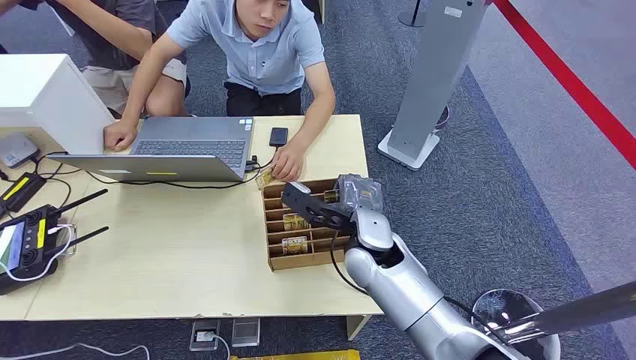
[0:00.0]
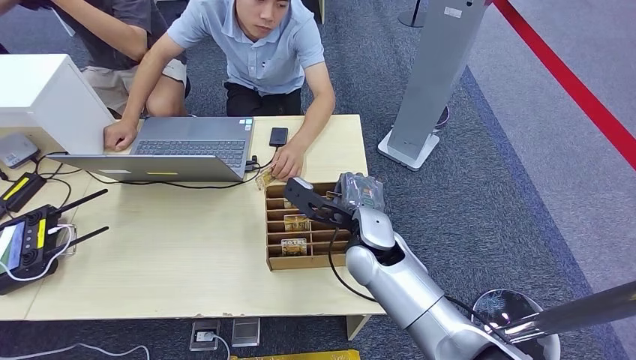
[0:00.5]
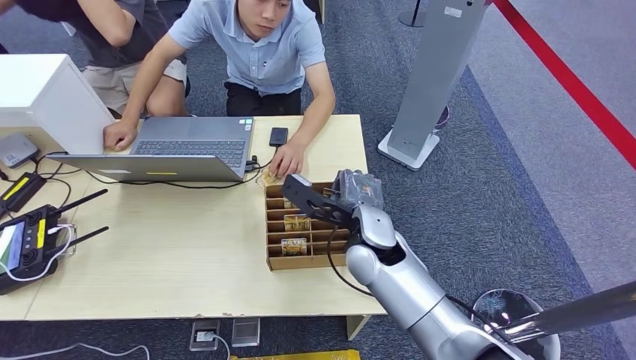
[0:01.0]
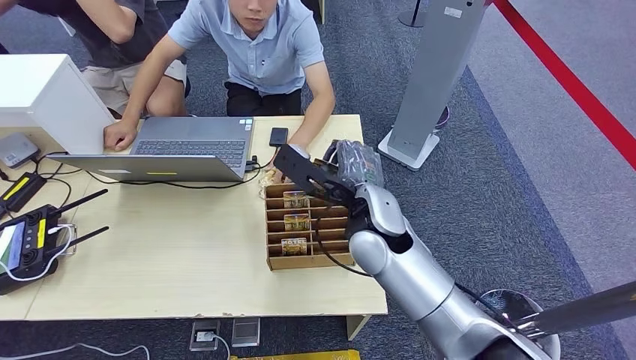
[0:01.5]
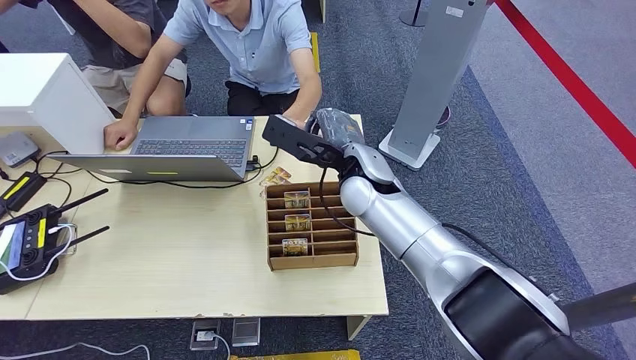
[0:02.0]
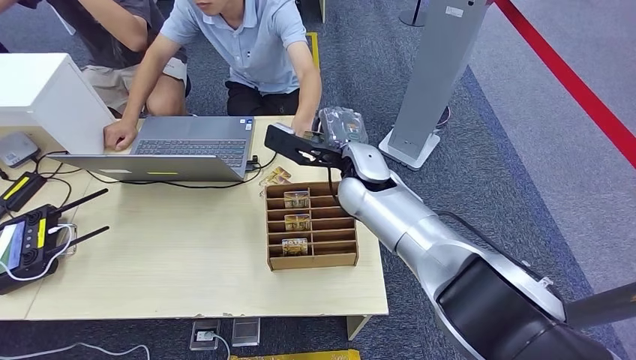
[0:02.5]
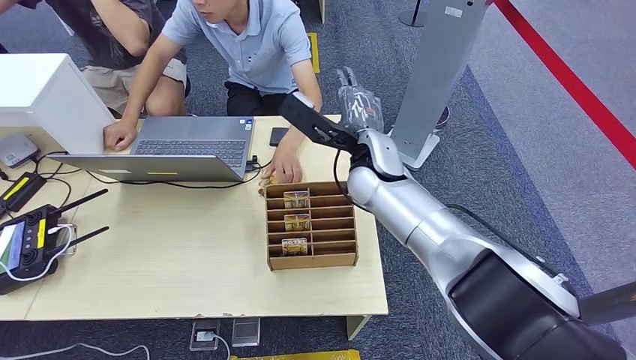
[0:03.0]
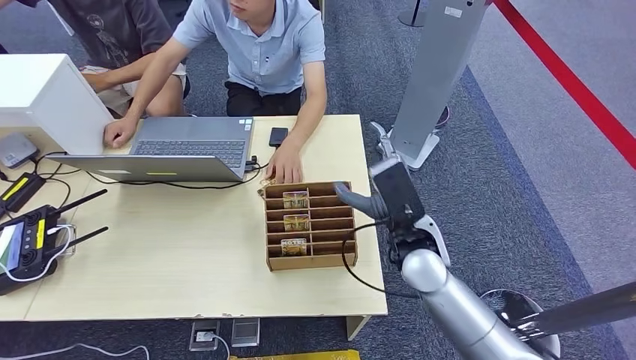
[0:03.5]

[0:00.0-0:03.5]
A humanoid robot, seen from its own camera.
Step, 0:00.0 to 0:01.5: Pick up the key card from the card box.
Step, 0:02.0 to 0:03.0: Hand the key card to the target.
0:02.0 to 0:03.5: The right hand moves backward, to the right and downward, roughly 15 cm.
